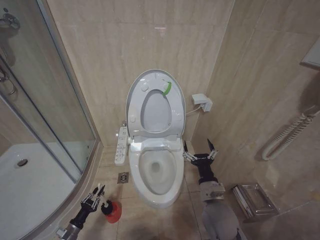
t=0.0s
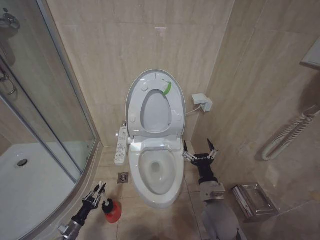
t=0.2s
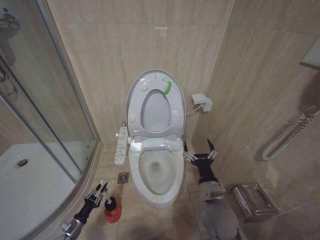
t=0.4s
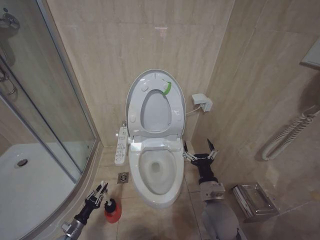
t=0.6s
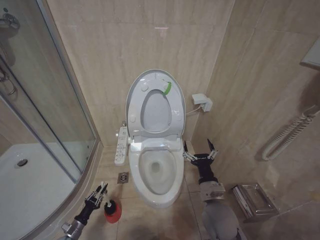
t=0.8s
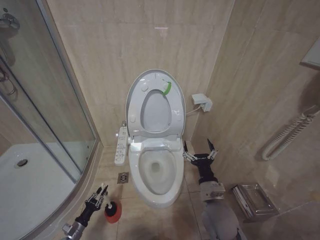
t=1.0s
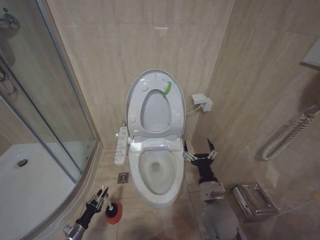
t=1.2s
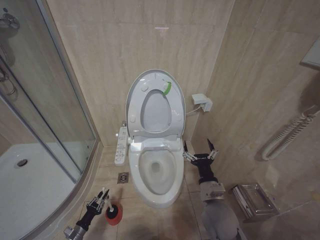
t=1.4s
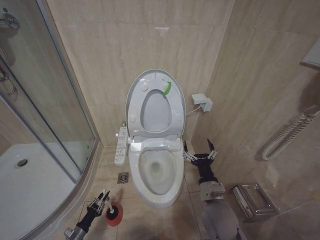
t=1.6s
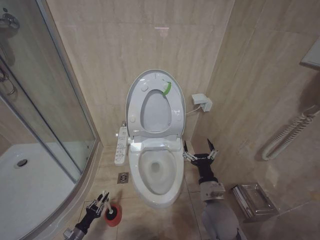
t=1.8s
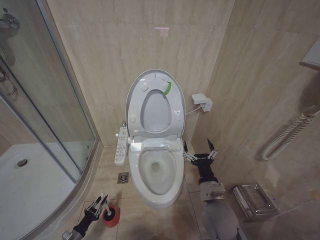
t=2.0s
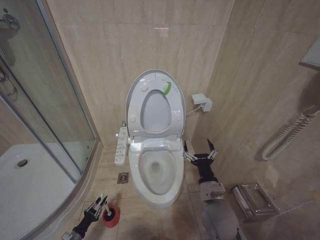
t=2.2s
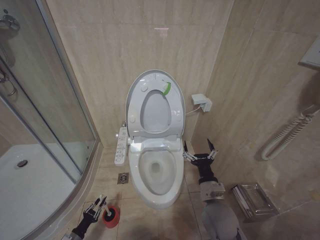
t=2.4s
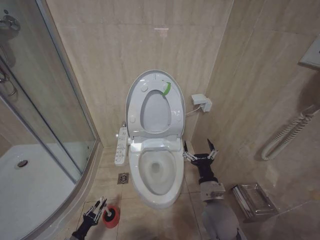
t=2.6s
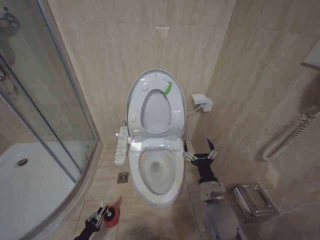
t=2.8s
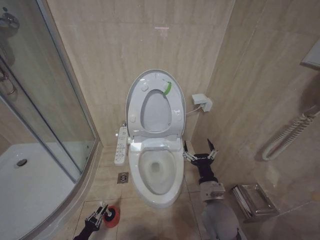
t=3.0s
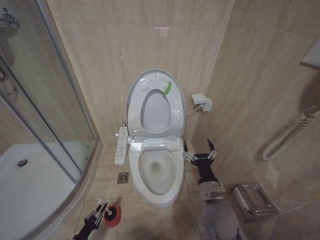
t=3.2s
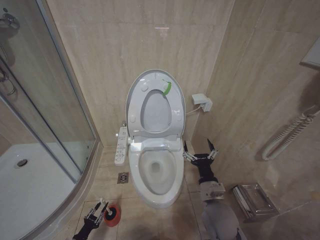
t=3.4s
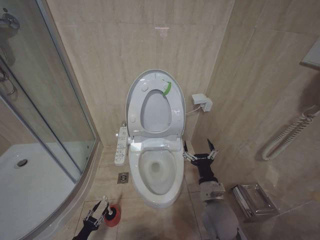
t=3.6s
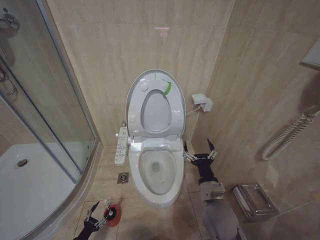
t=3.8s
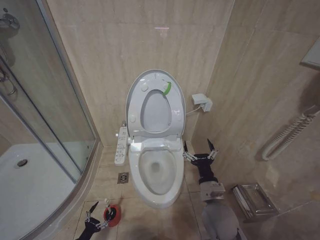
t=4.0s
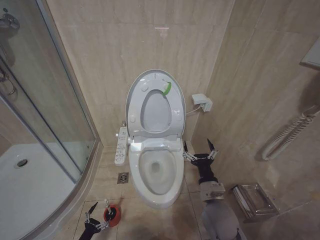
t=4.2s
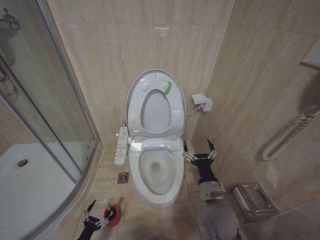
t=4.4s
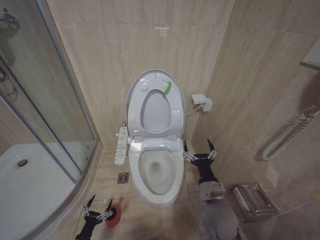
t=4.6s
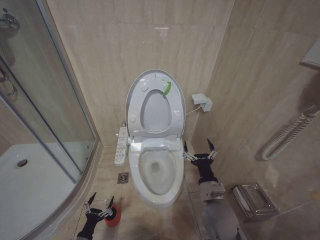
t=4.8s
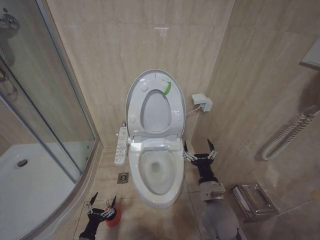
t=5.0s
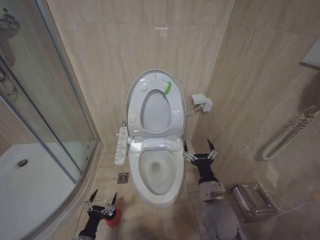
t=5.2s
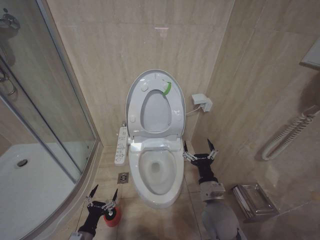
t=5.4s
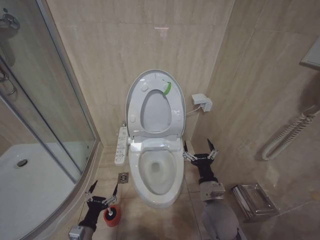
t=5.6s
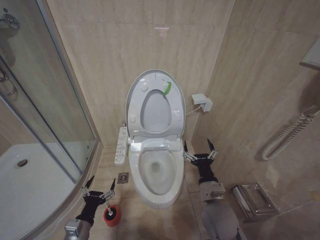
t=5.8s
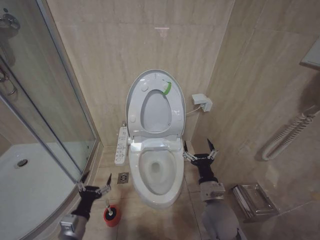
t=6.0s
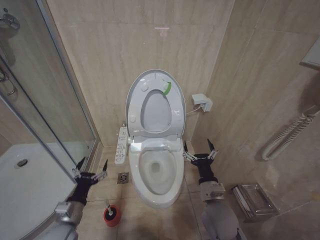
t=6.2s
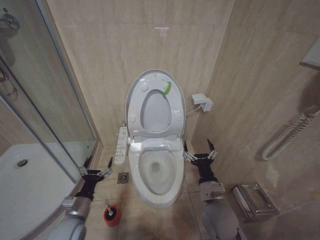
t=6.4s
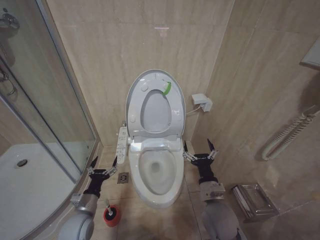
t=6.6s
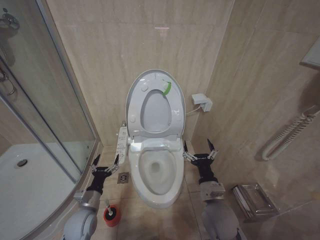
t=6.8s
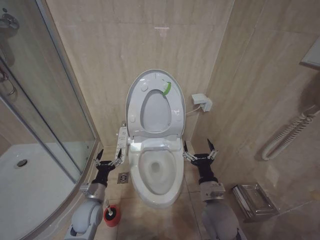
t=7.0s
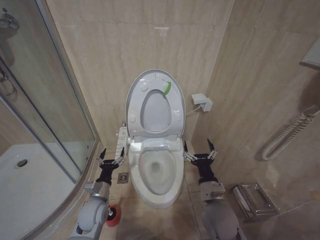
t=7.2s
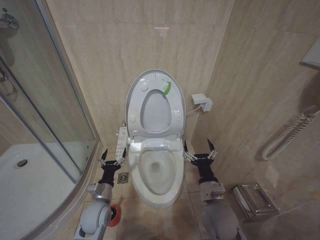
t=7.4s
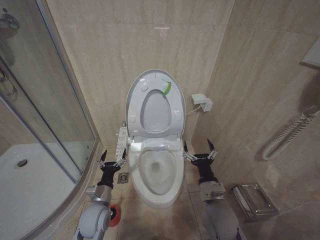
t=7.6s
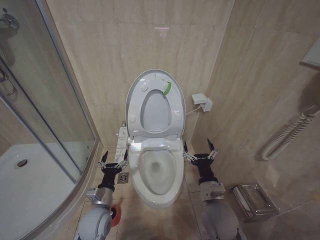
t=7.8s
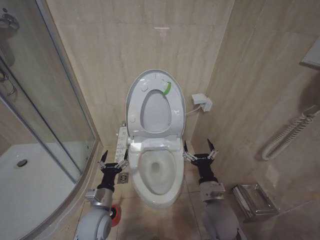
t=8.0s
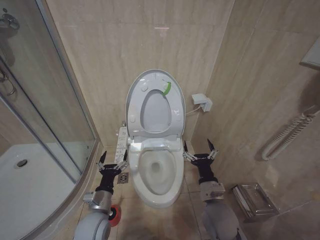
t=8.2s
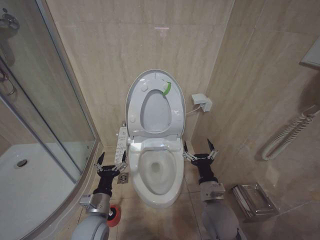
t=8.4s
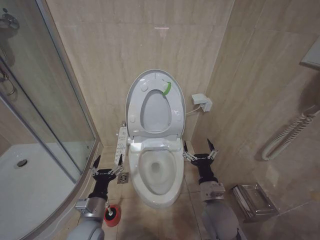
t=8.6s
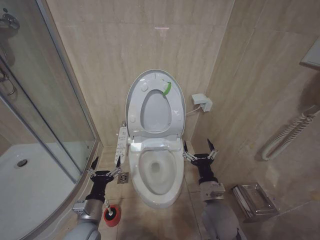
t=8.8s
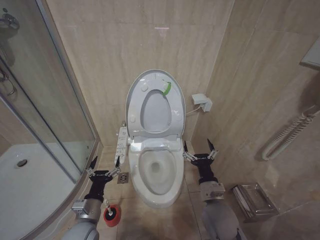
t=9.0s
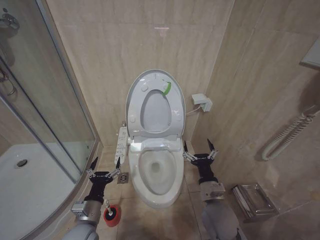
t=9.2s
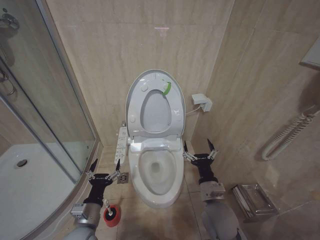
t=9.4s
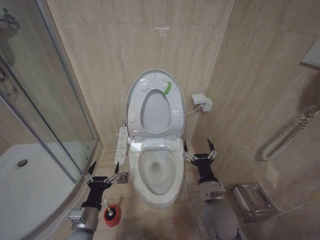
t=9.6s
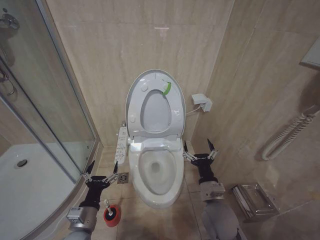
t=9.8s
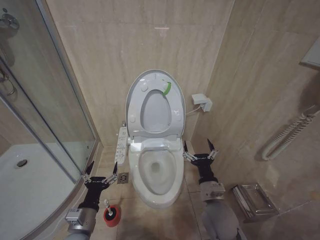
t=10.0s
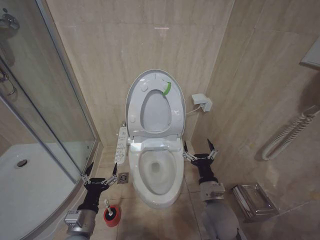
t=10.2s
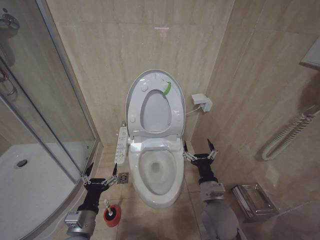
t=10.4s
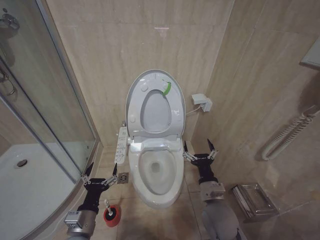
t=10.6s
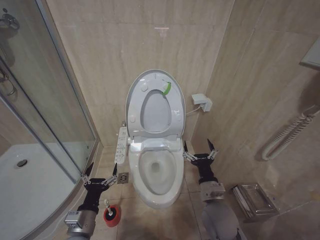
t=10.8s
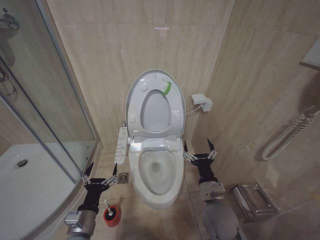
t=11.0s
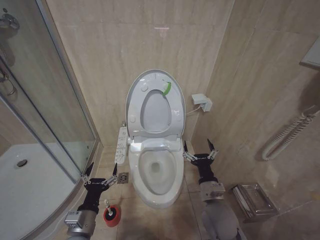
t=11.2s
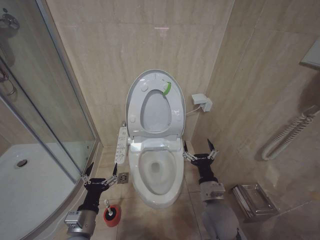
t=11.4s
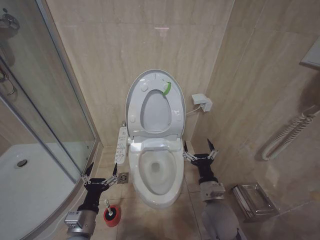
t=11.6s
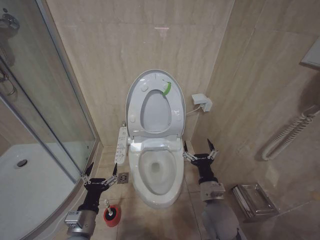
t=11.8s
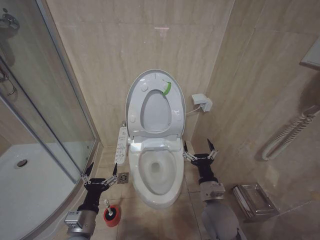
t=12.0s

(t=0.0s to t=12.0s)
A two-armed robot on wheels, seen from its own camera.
Task of the whole recording: Open the toilet lid, clean the toilet bowl with a toilet brush, close the toilet lid, and flush.
t=0.0s - t=1.6s: The grippers move only a little.
t=1.6s - t=3.0s: The left gripper ends up roughly 5 cm from where it was.
t=3.0s - t=4.4s: The left gripper opens its fingers.
t=4.4s - t=6.0s: The left gripper shifts about 25 cm upward and to the right.
t=6.0s - t=7.6s: The left gripper shifts roughly 10 cm forward and to the right.
t=7.6s - t=9.0s: The left gripper shifts about 5 cm backward.
t=9.0s - t=10.4s: There are only small adjustments of the grippers.
t=10.4s - t=12.0s: Neither gripper changes place.

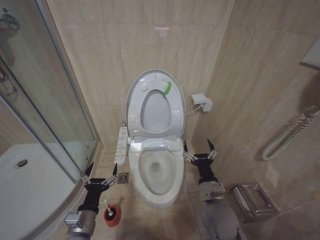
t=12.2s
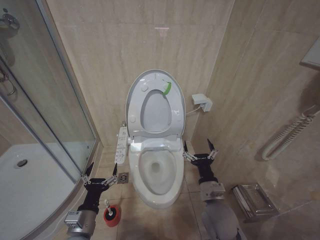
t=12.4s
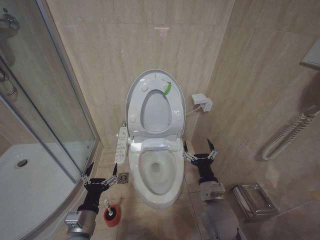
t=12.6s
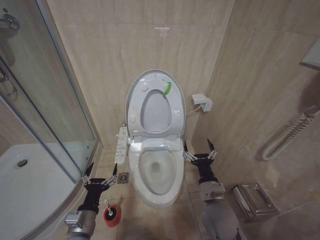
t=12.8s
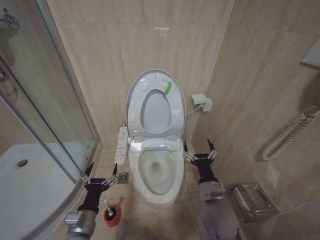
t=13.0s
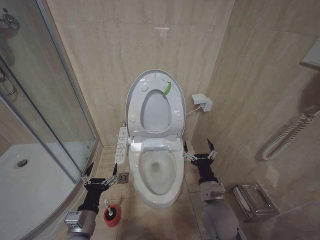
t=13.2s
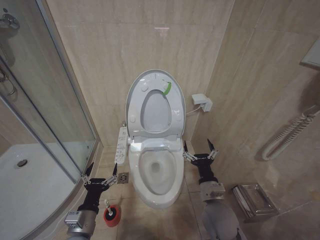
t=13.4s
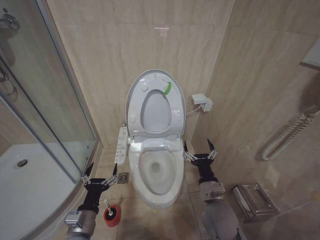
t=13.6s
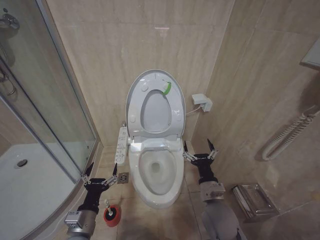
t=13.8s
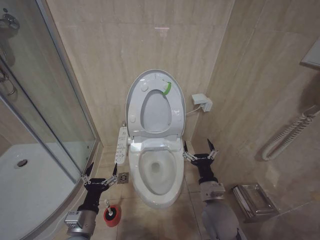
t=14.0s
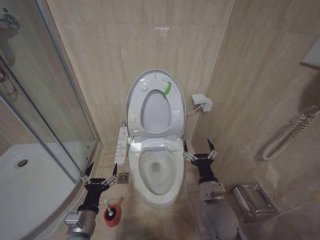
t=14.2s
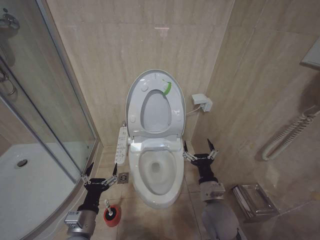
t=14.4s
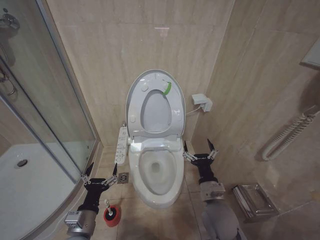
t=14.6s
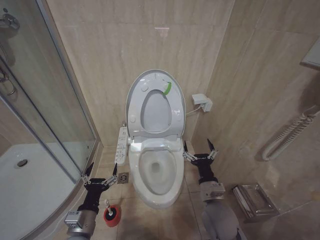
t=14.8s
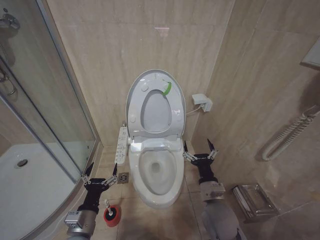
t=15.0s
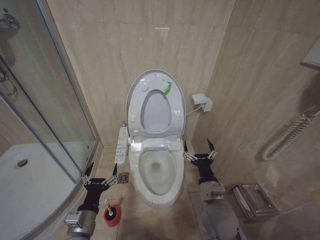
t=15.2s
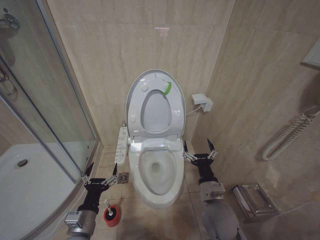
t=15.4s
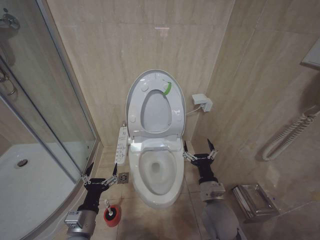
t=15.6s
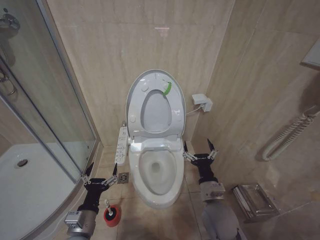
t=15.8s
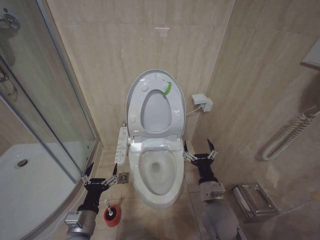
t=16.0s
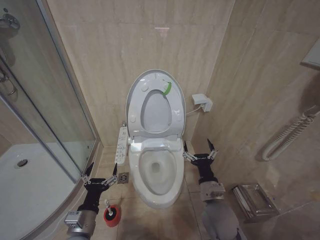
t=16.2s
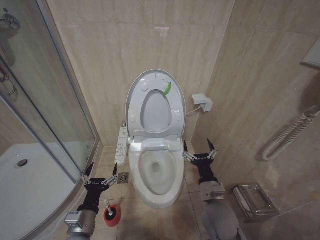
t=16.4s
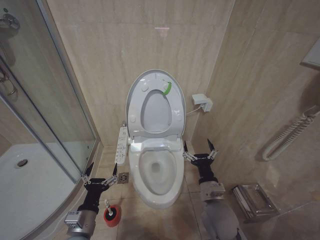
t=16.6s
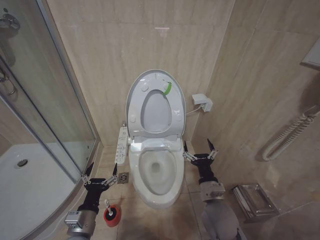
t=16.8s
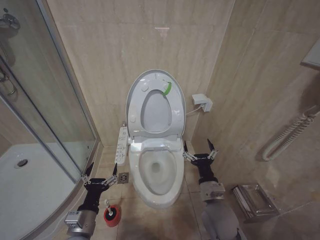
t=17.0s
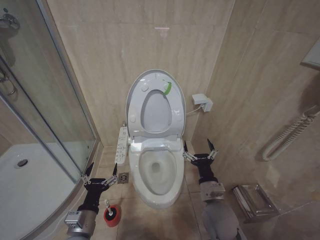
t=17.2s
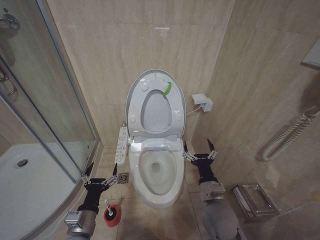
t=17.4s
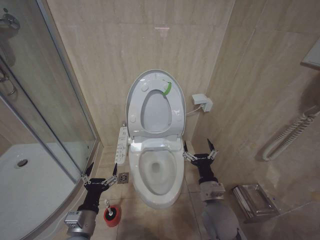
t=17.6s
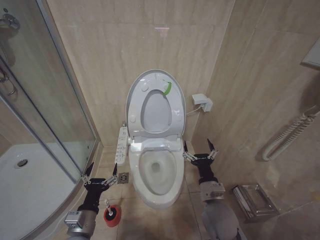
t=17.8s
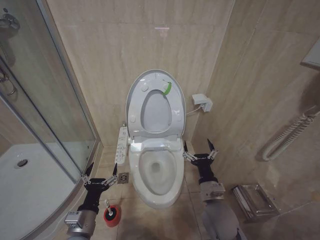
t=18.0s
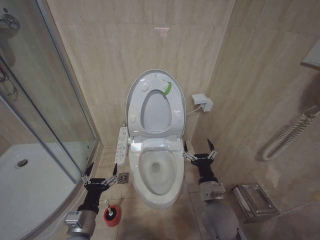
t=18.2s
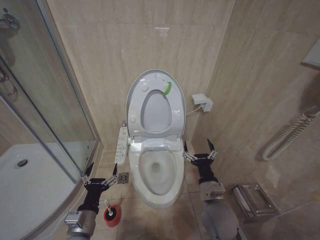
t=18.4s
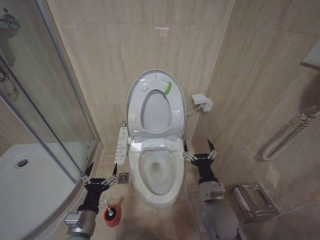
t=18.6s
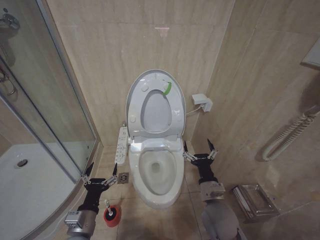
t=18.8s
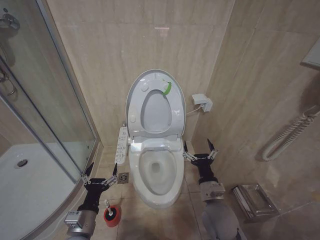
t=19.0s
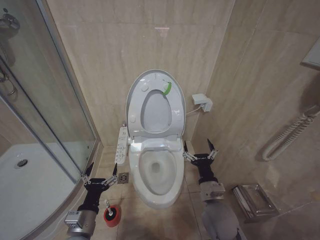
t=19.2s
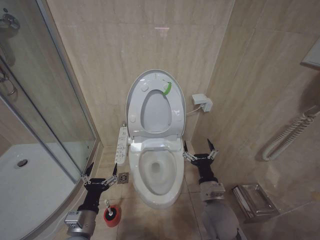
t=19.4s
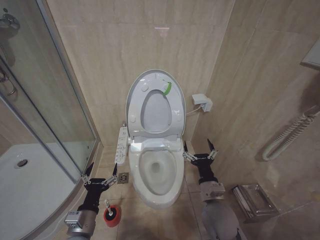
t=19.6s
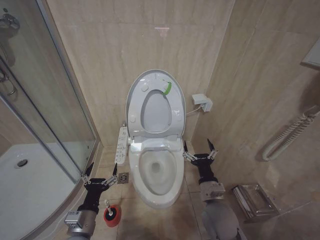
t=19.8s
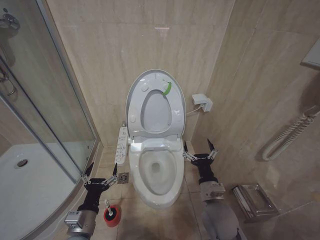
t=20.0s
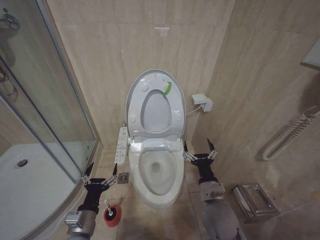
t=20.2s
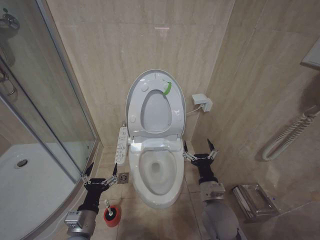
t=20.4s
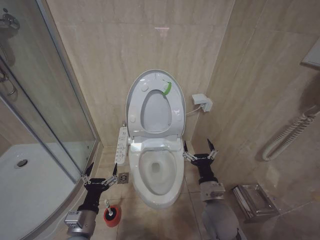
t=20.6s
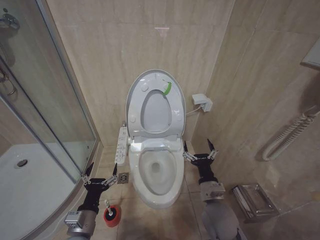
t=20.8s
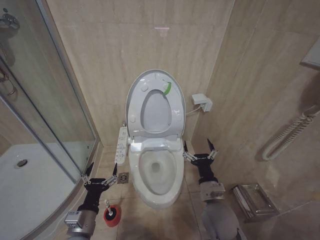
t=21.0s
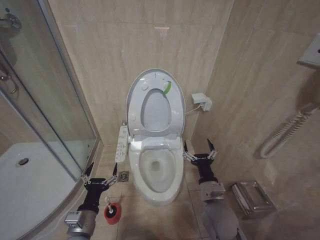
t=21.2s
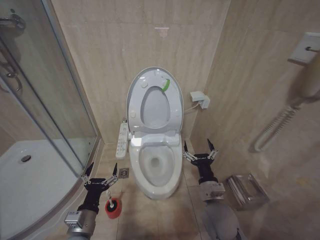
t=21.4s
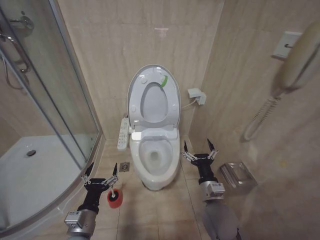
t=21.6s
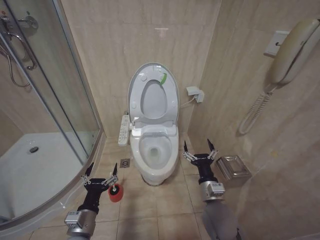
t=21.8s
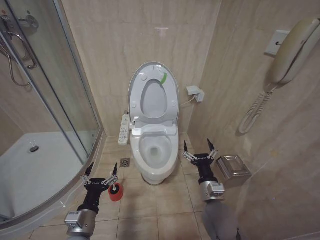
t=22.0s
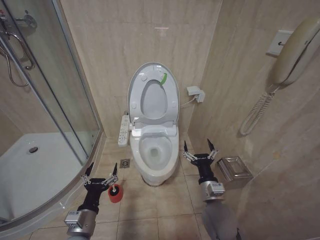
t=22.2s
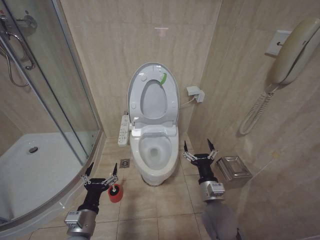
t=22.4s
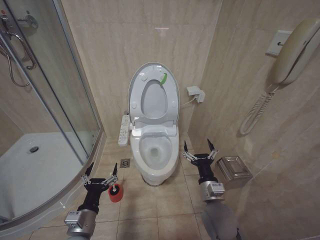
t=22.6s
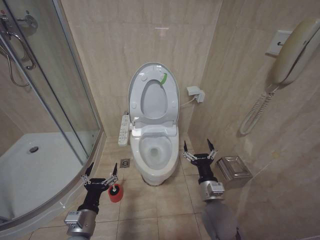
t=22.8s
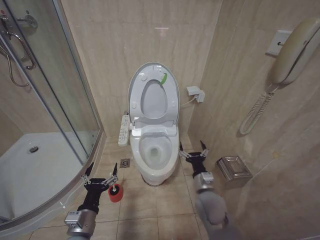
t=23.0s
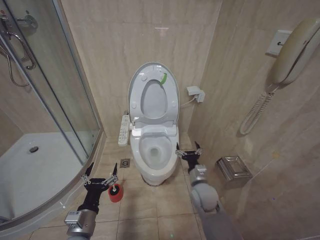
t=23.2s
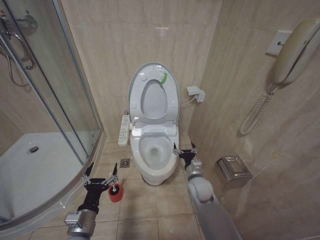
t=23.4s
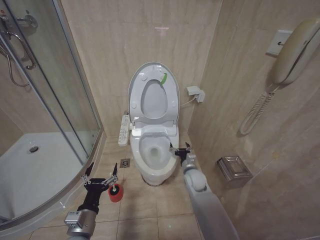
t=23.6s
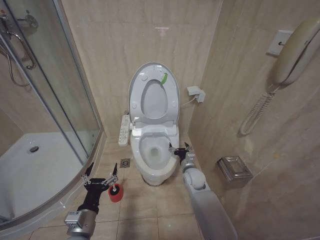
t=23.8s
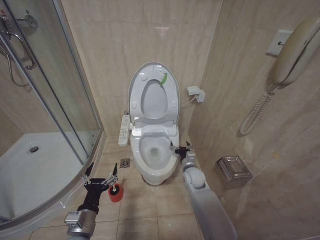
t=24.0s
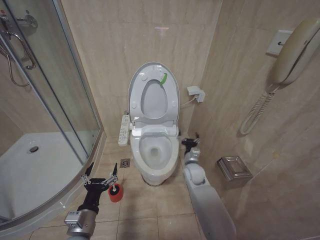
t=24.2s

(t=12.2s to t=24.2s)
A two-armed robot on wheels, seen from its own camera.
Task of the whole recording: Open the toilet lid, clean the toilet bowl with a toilet brush, close the toilet lid, and flush.
t=12.2s - t=22.6s: Both grippers stay put.
t=22.6s - t=24.2s: The right gripper heads forward, covering roughly 20 cm.
